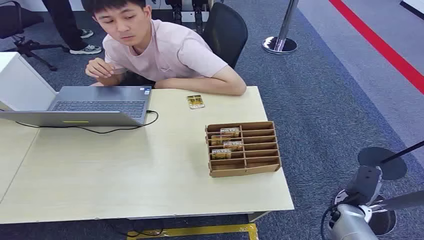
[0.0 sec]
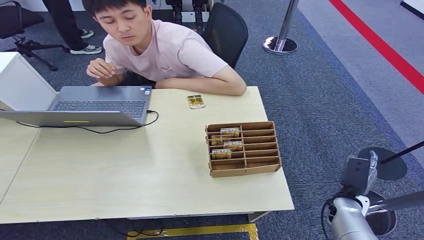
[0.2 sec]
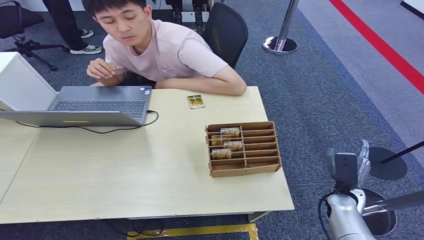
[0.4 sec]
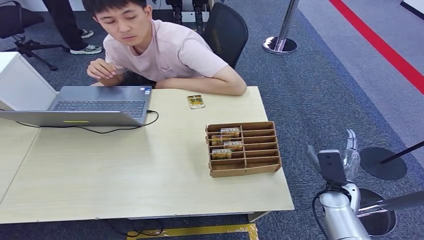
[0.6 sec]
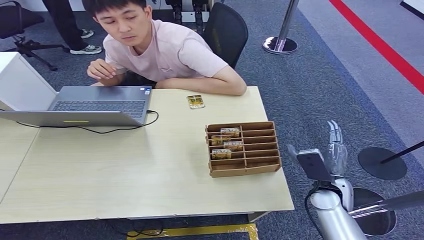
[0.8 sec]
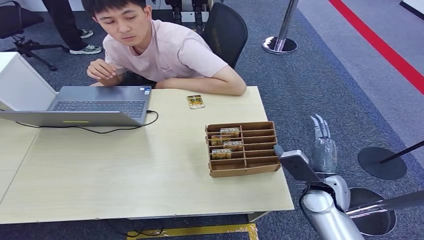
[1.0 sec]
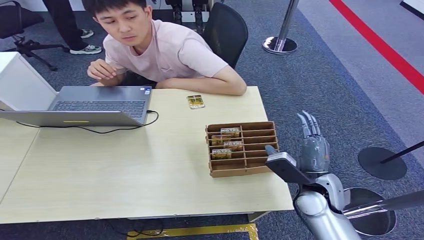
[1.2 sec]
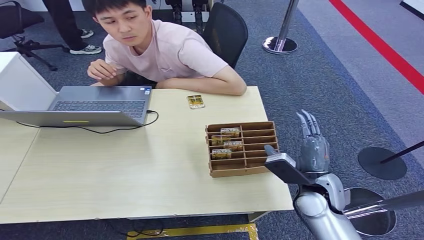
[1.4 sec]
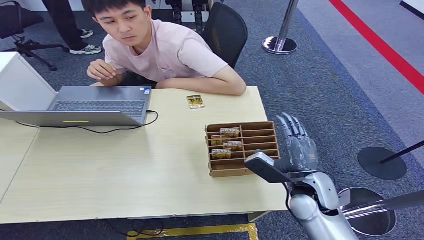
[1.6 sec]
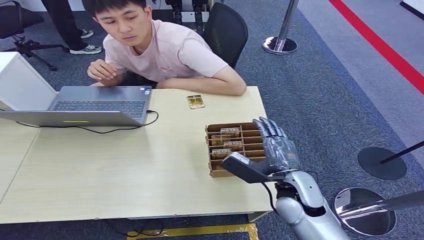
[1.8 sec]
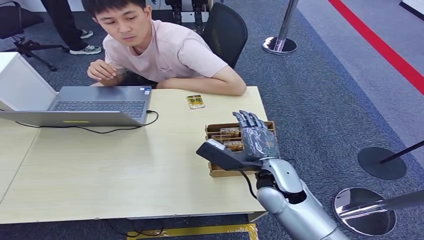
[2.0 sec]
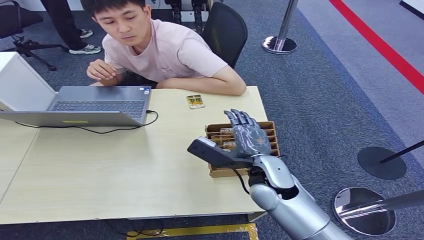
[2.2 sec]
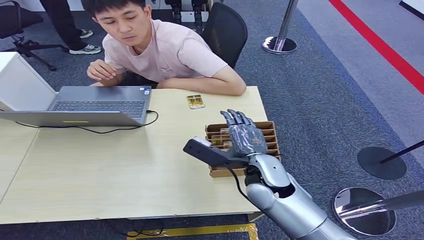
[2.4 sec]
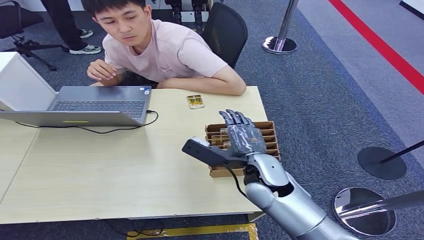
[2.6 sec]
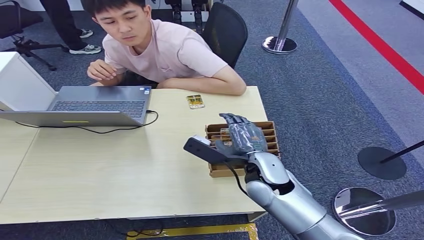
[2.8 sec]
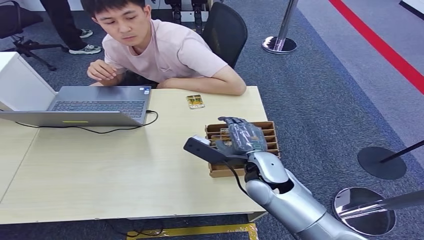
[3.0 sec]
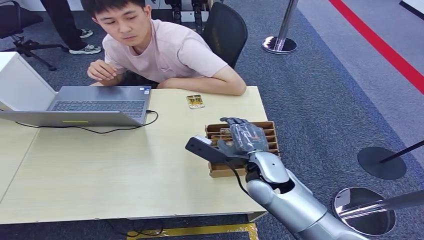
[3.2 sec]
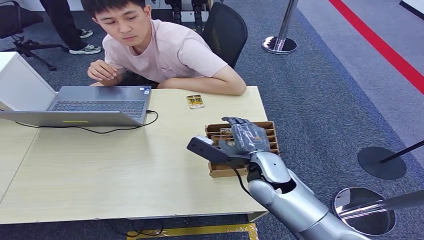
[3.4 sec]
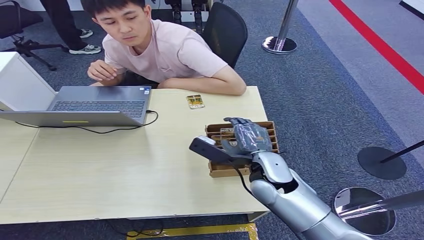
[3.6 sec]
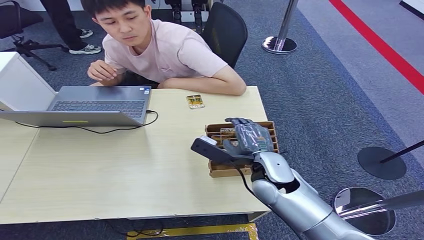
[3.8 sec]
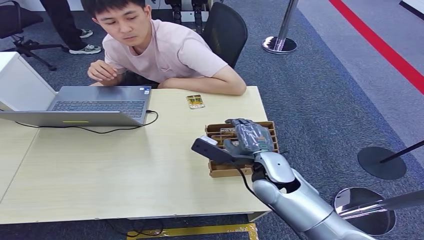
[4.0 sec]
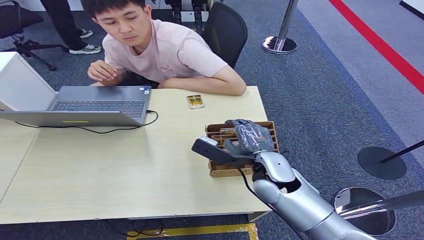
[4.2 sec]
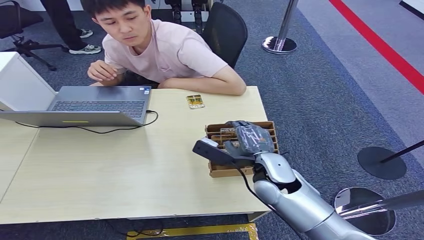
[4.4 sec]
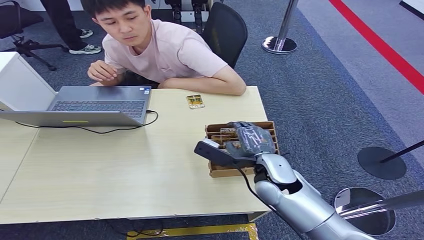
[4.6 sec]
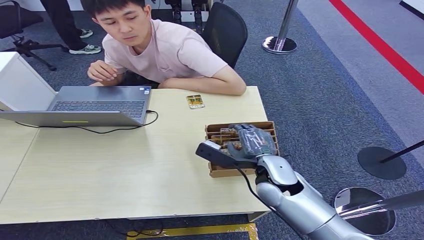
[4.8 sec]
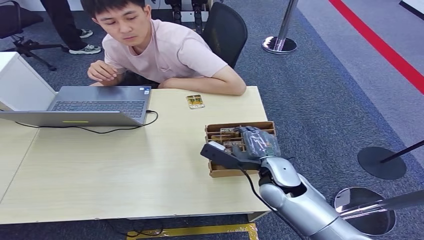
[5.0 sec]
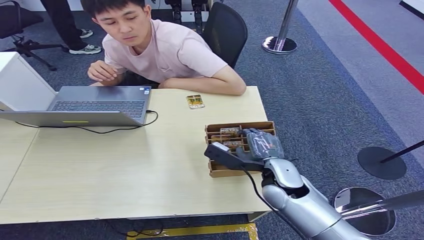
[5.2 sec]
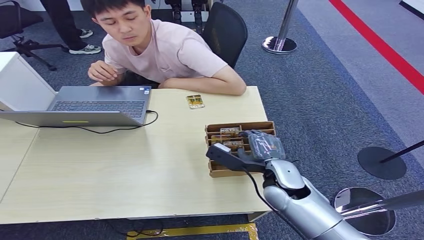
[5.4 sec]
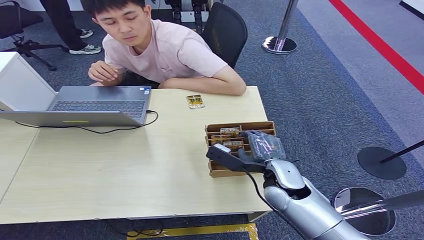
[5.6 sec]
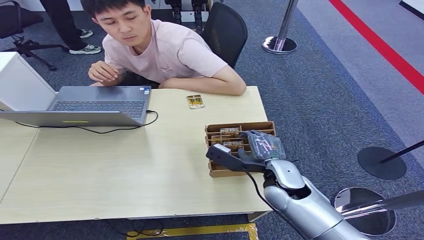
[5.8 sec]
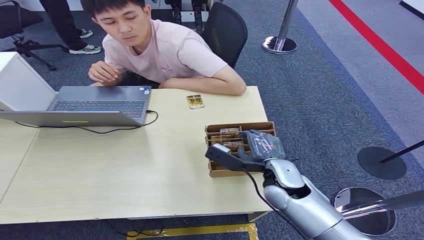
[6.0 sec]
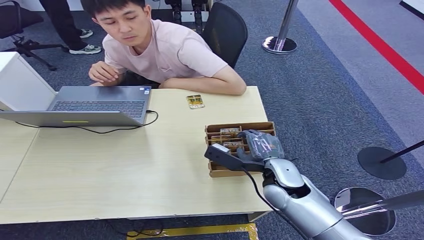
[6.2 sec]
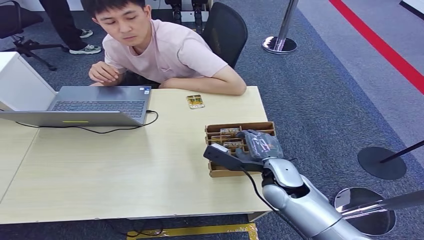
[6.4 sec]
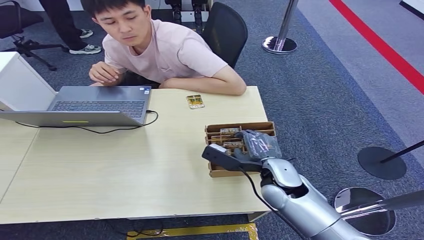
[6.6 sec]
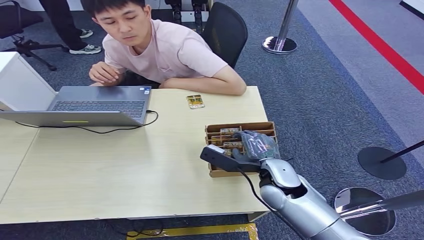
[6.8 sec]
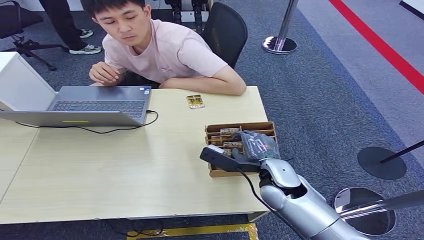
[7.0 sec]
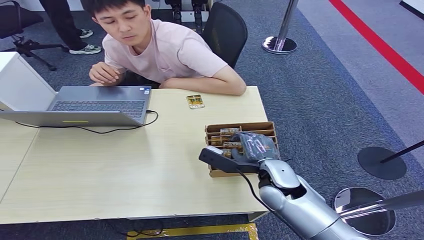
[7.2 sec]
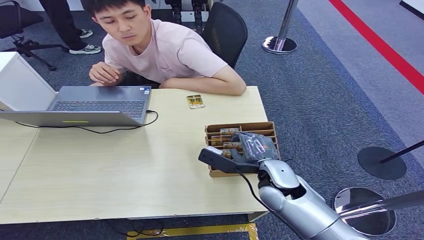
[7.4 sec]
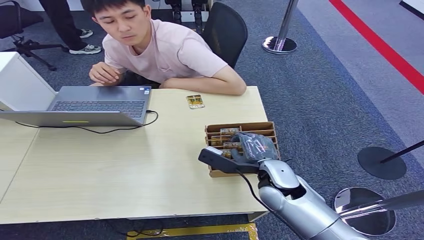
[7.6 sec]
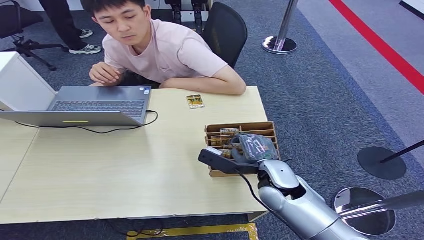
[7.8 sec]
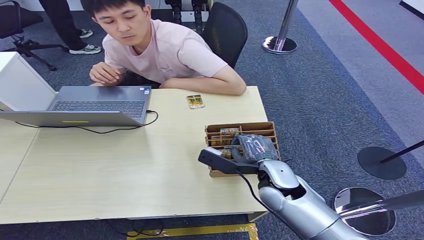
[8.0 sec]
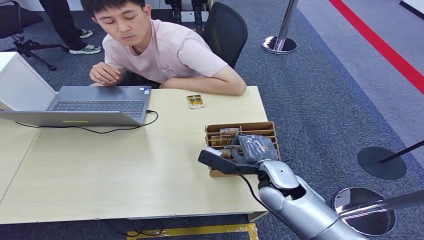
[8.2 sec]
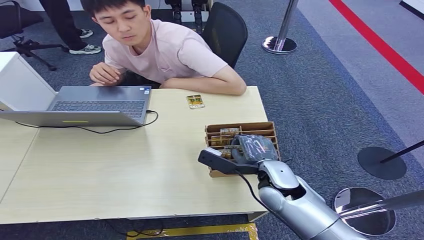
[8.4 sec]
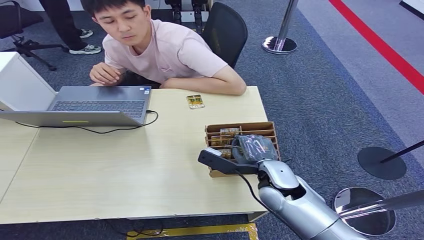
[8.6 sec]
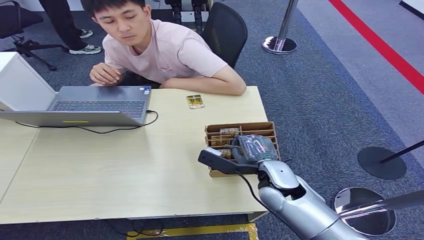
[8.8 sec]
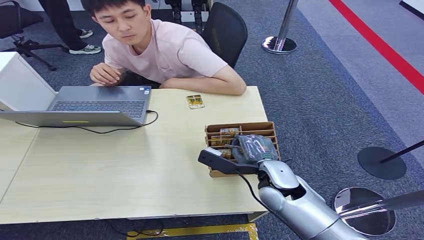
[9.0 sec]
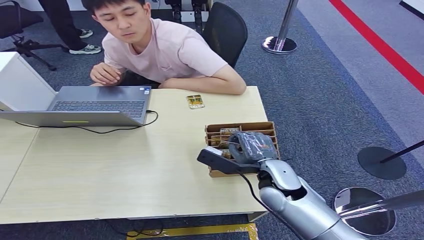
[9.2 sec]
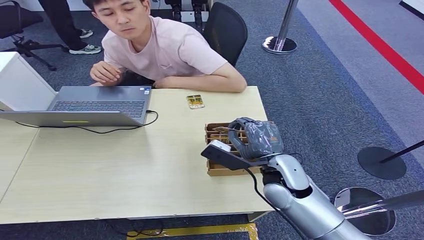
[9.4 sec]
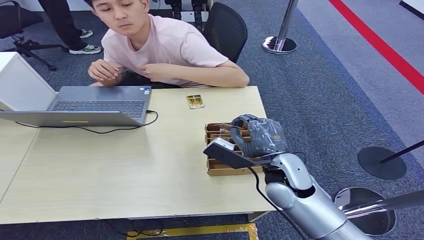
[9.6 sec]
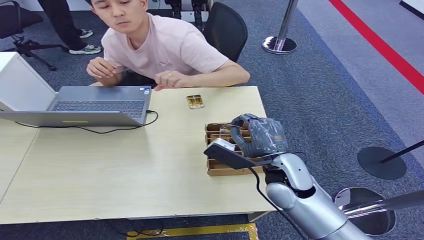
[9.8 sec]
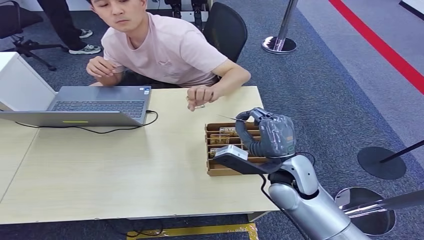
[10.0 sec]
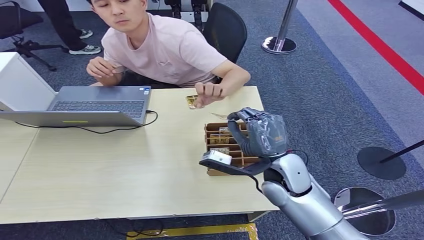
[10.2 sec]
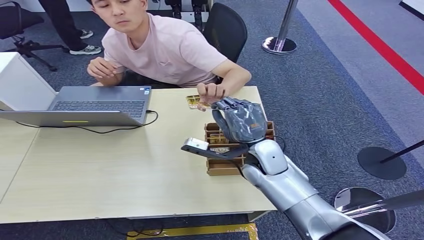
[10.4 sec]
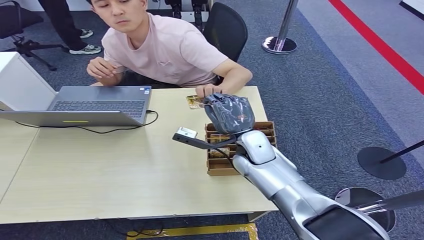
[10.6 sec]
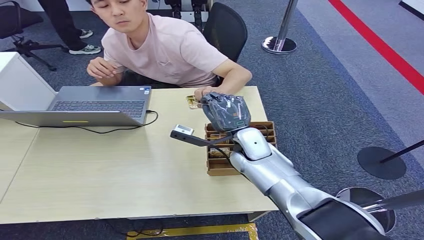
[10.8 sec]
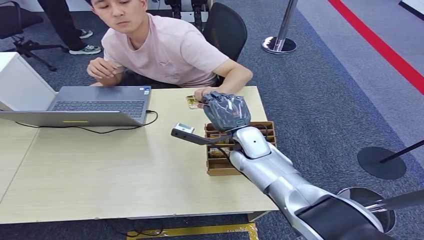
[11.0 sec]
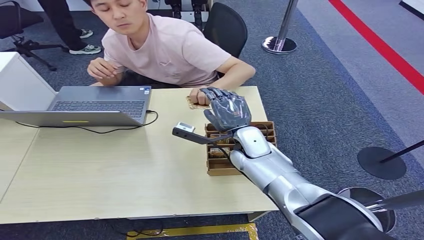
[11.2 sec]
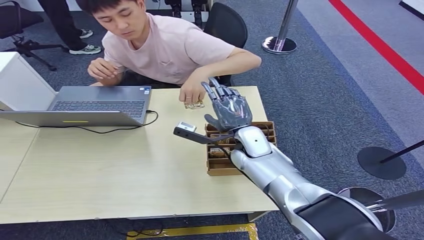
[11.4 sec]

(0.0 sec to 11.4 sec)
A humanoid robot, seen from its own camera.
Task of the whole recording: Pick up the card and hand it over to the target person.
Step, 0.0 sec - 9.0 sec: Pick up the key card from the card box.
Step, 9.2 sec - 11.4 sec: Hand the key card to the target.
1.4 sec - 2.8 sec: The right hand is displaced to the left and forward by some 10 cm.
2.8 sec - 7.2 sec: The hands stay close to where they were, moving slightly.
7.2 sec - 8.6 sec: The two hands keep their place.
10.0 sec - 11.4 sec: The right hand goes approximately 10 cm forward.
